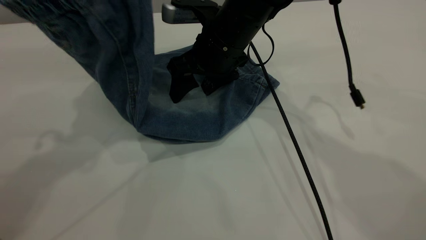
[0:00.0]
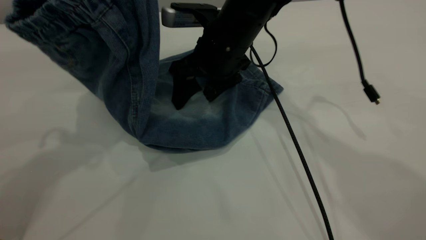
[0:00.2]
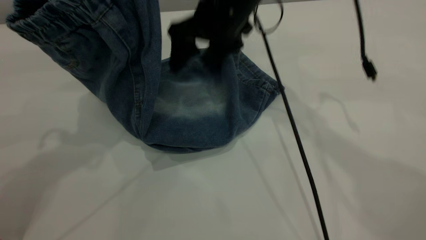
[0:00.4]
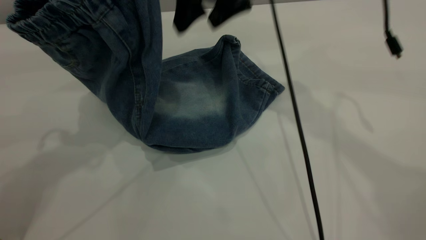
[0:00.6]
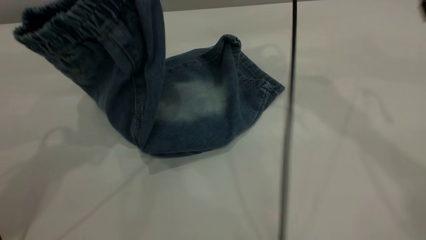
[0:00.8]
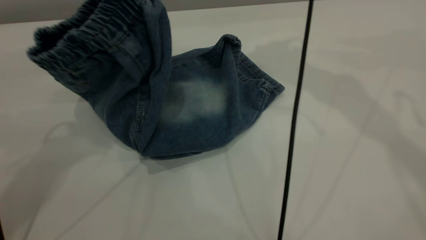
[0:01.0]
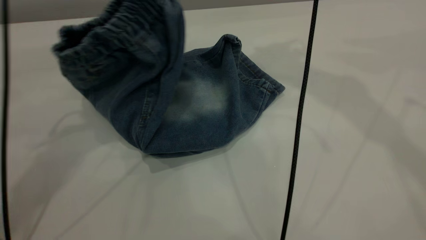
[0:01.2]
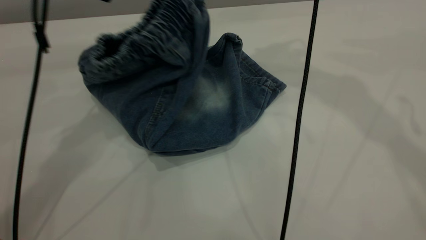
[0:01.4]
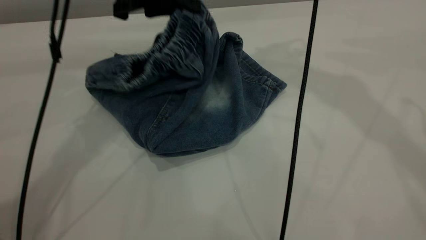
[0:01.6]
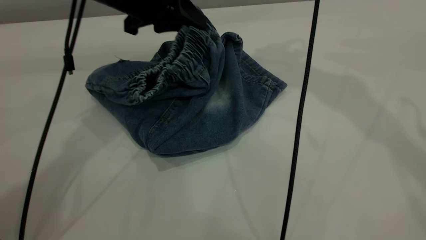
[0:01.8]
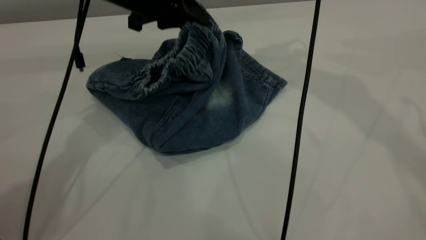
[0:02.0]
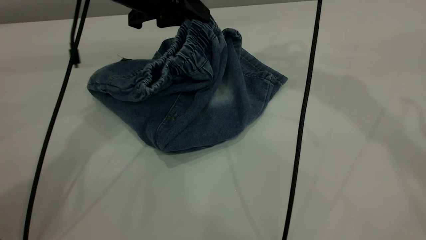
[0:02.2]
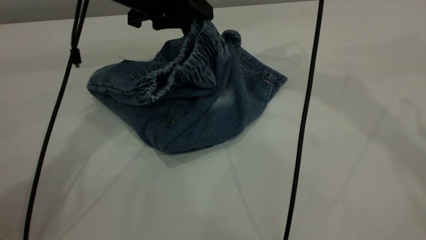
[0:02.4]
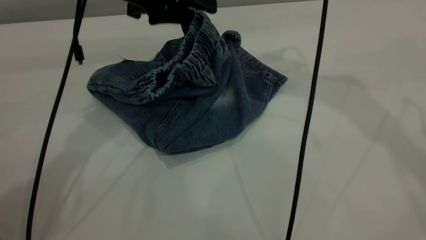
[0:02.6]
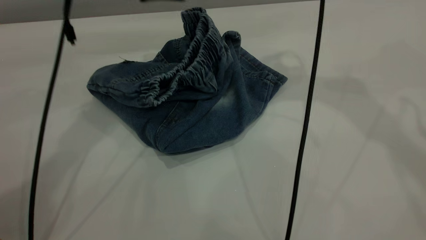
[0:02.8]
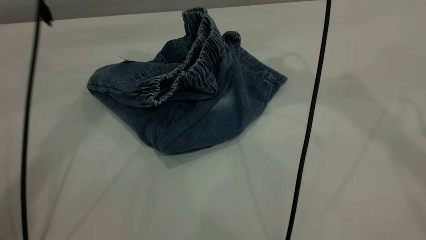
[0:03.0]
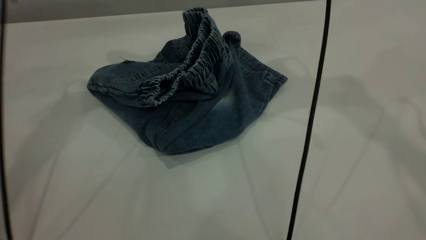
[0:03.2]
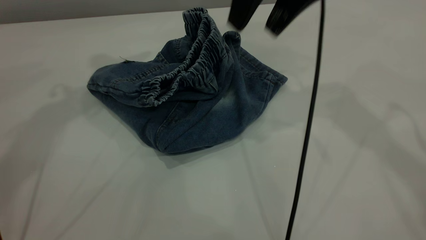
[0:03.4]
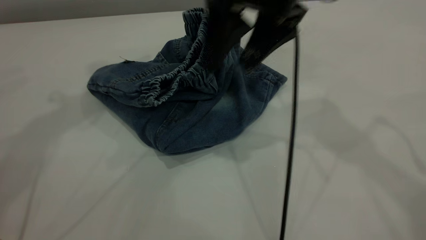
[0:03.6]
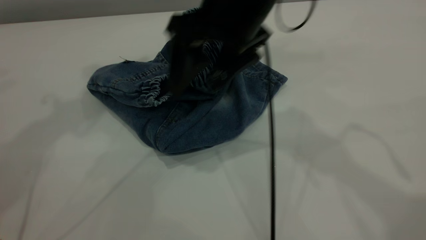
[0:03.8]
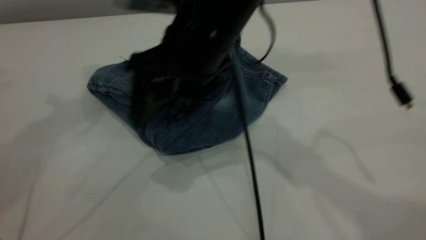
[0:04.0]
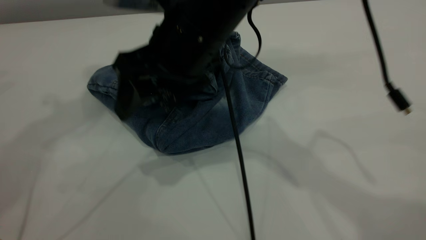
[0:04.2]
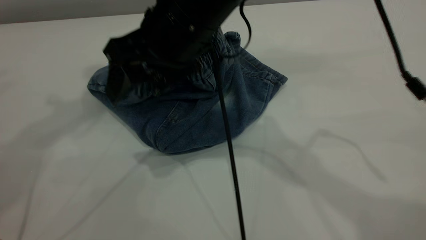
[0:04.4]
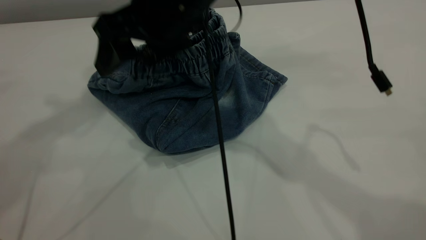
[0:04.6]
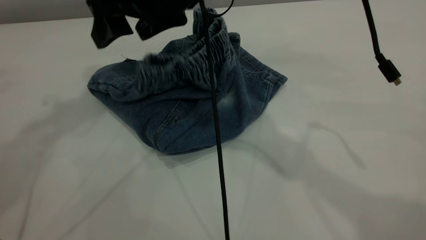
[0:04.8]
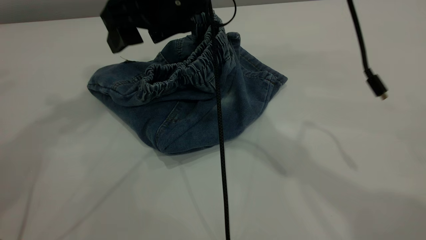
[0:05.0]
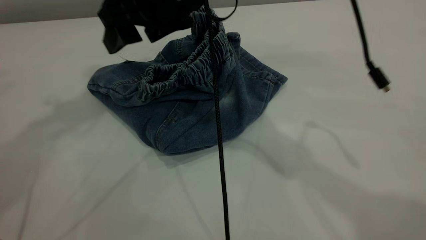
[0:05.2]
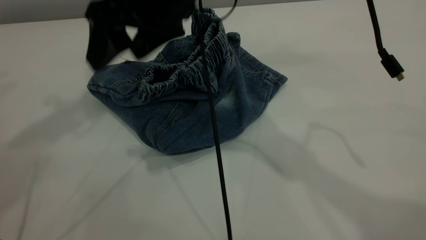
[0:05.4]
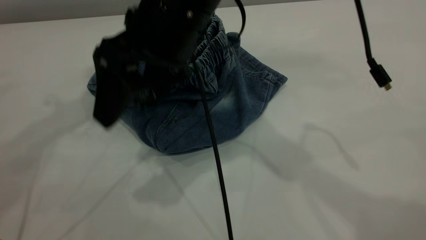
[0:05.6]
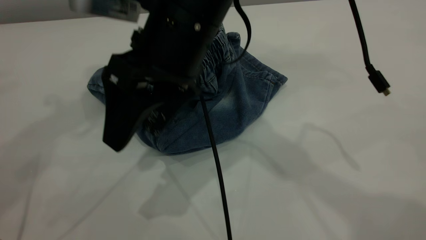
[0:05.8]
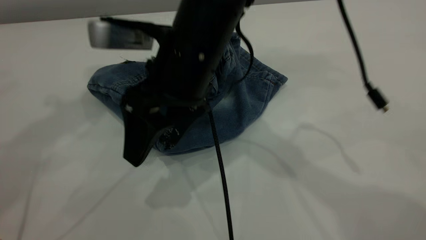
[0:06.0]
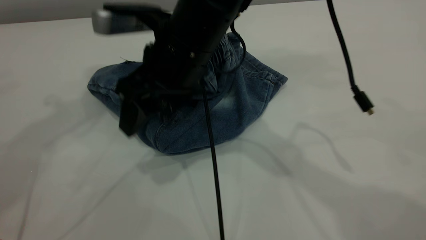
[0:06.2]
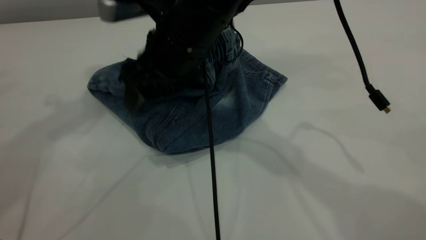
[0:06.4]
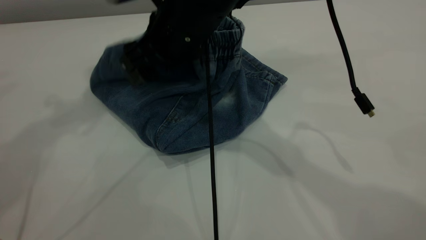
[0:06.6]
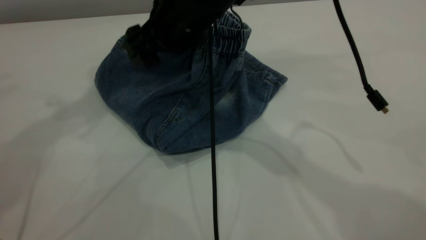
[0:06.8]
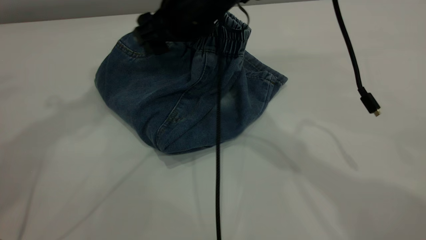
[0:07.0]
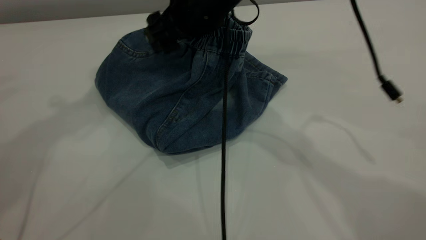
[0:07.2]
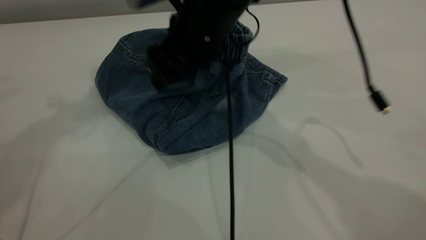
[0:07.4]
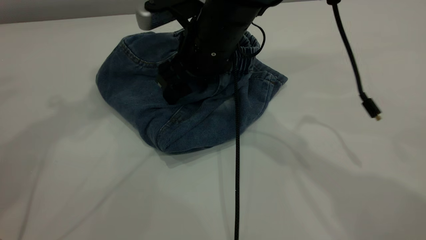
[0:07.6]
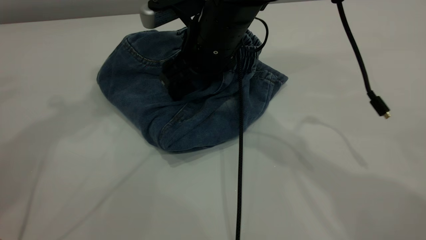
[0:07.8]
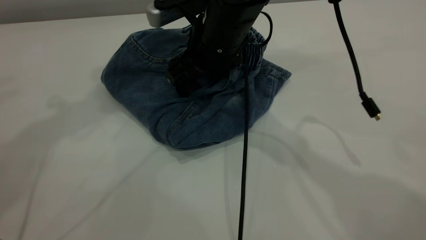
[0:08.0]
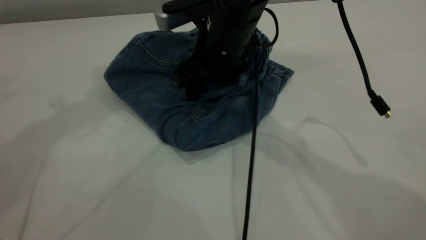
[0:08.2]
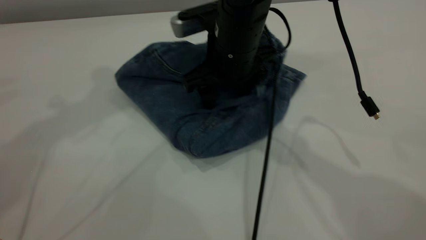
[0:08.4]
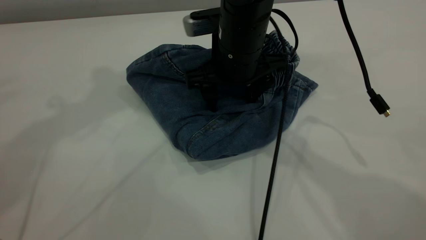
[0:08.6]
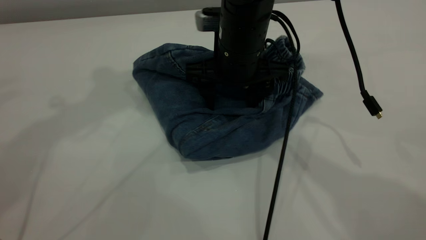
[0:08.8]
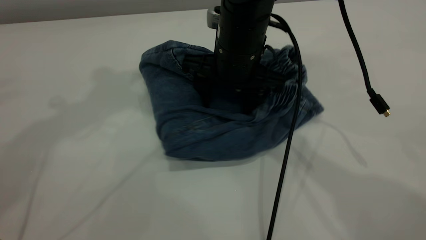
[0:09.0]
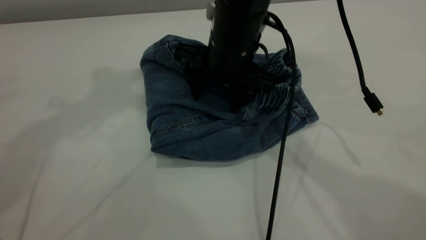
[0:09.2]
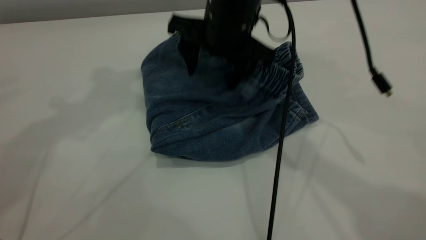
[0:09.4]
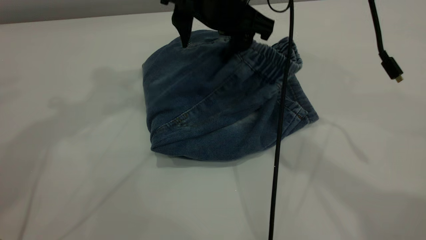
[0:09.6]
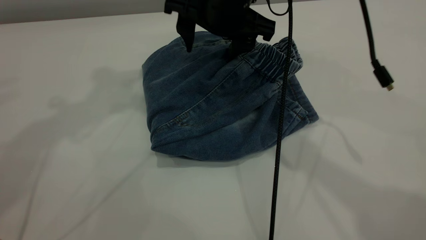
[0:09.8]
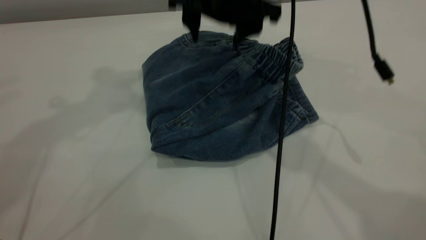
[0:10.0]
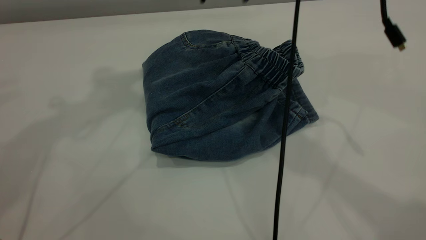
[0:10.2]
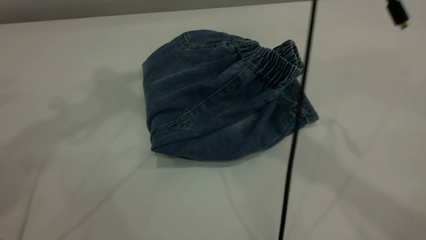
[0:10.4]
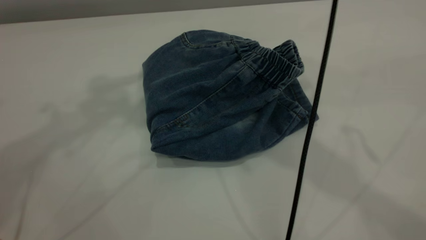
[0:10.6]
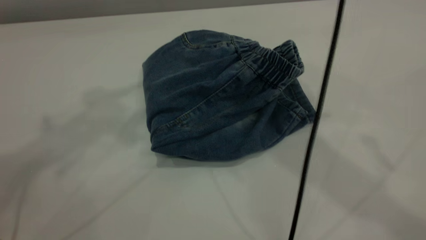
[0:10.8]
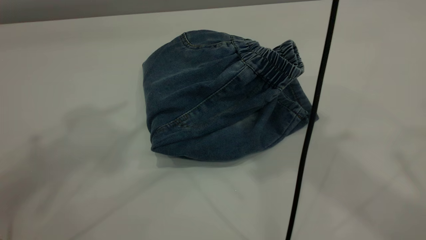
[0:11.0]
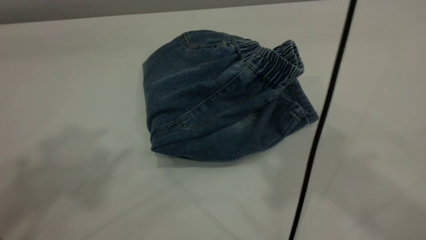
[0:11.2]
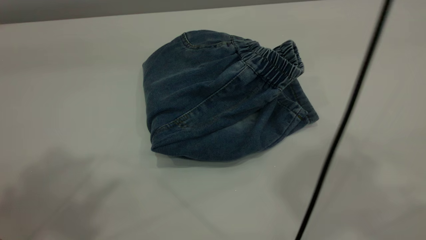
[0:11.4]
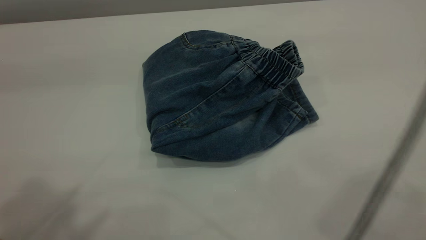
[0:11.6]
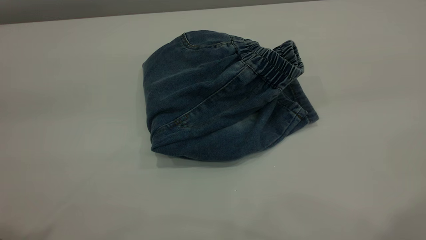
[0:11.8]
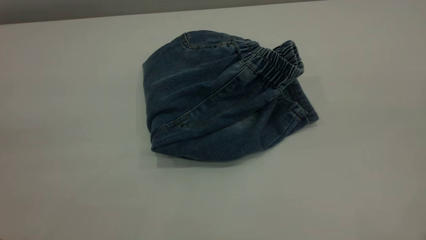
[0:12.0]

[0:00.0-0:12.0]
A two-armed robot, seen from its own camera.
Step, 0:00.0 to 0:03.0: Fold the pants from left to right.
0:00.0 to 0:01.6: The left gripper travels downward, forward and to the right by roughly 15 cm. Meanwhile the right gripper heads upward and to the right, covering some 25 cm.
0:01.6 to 0:03.0: The left gripper goes approximately 5 cm upward, and opens.
0:03.0 to 0:04.4: The right gripper goes approximately 20 cm to the left, downward and backward; the left gripper heads upward, covering roughly 15 cm.
0:06.0 to 0:07.6: The right gripper travels forward by approximately 5 cm.
0:09.0 to 0:10.4: The right gripper shifts about 15 cm upward.
0:10.4 to 0:12.0: The right gripper travels backward and to the right by some 35 cm.
